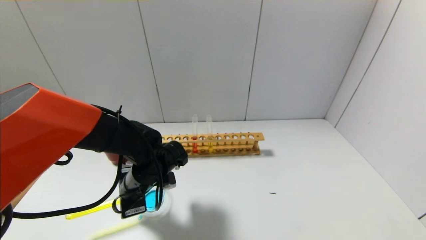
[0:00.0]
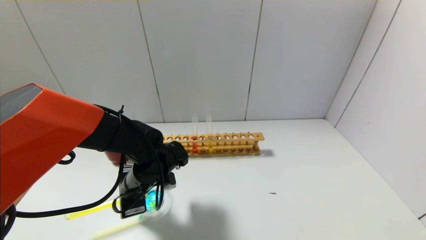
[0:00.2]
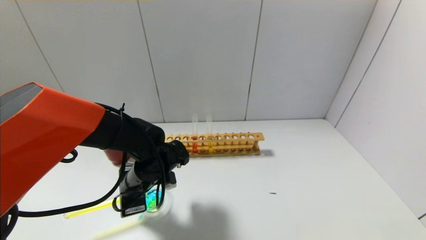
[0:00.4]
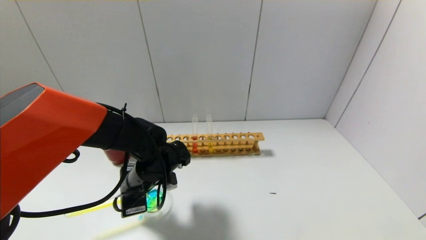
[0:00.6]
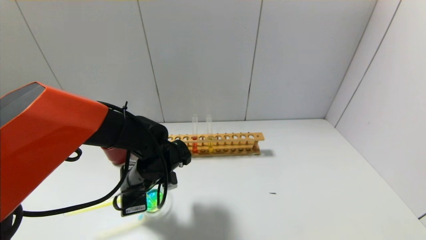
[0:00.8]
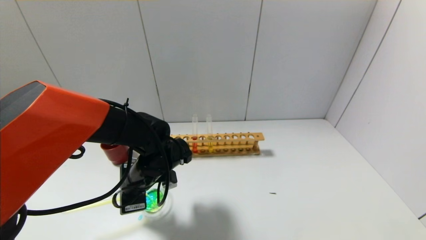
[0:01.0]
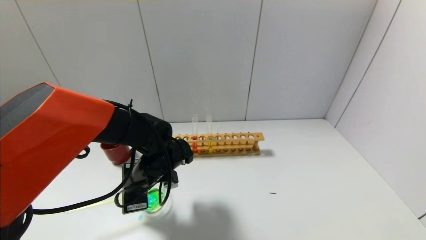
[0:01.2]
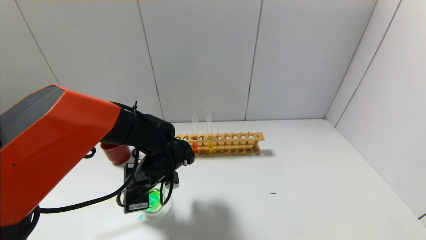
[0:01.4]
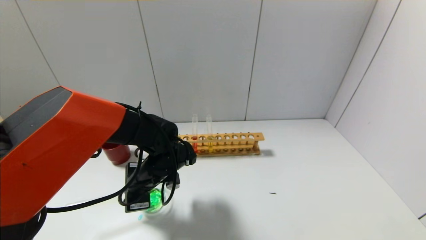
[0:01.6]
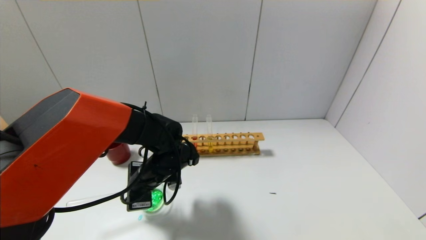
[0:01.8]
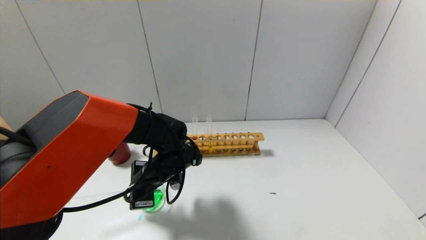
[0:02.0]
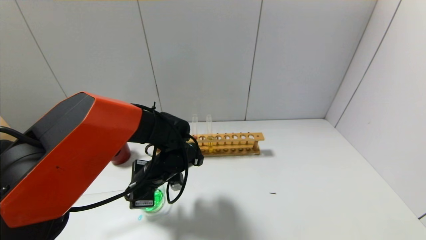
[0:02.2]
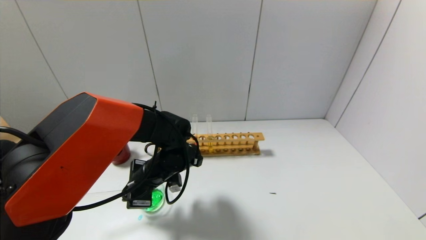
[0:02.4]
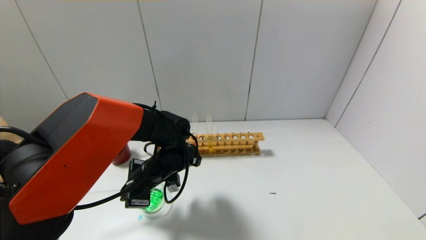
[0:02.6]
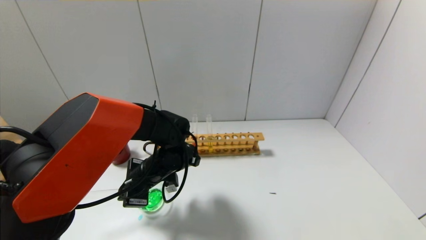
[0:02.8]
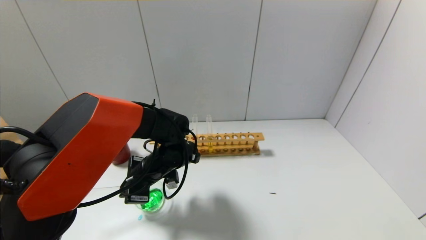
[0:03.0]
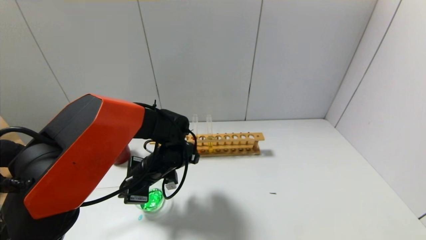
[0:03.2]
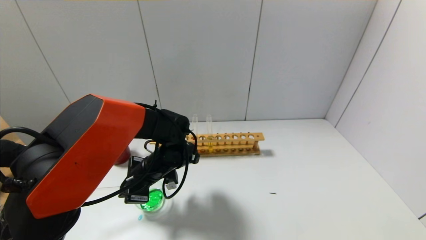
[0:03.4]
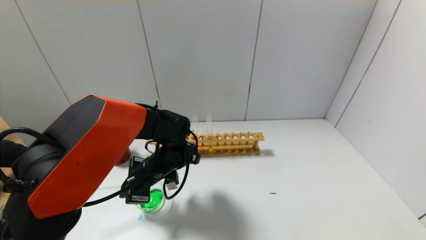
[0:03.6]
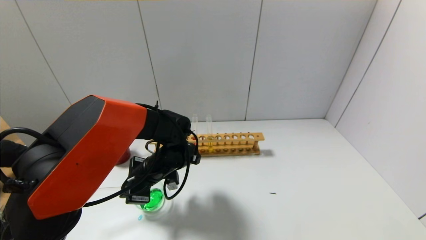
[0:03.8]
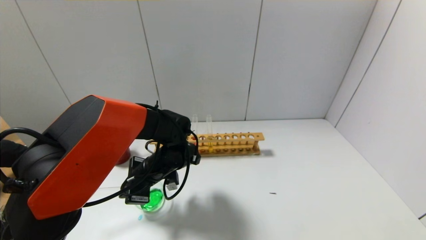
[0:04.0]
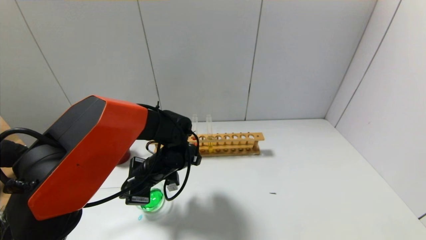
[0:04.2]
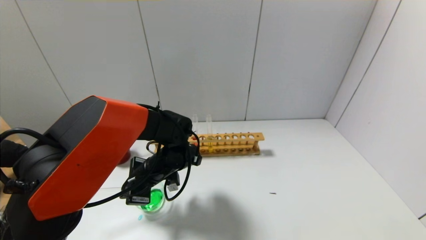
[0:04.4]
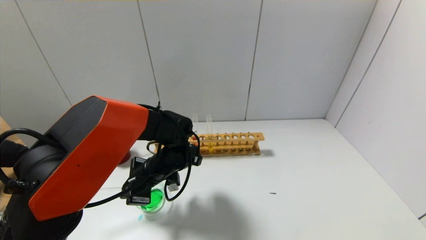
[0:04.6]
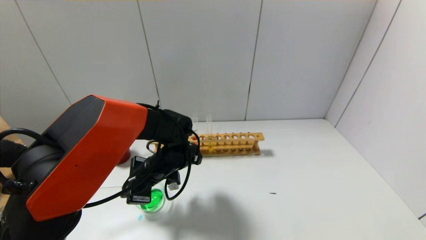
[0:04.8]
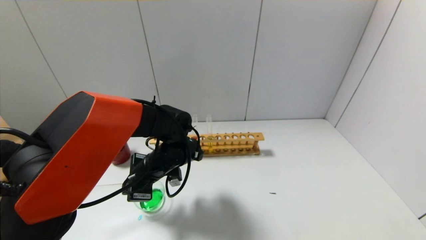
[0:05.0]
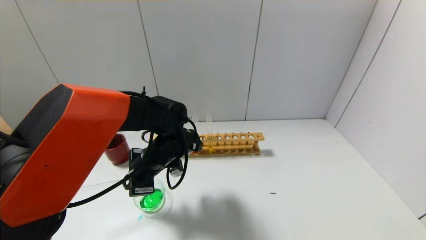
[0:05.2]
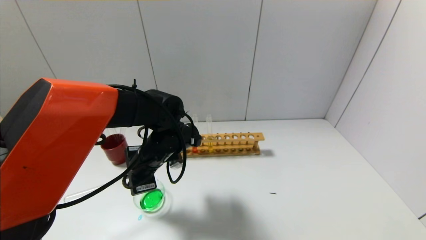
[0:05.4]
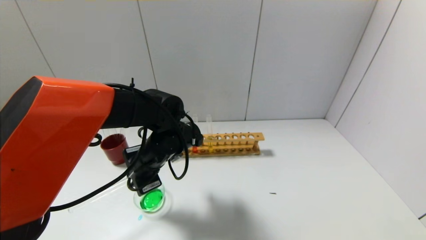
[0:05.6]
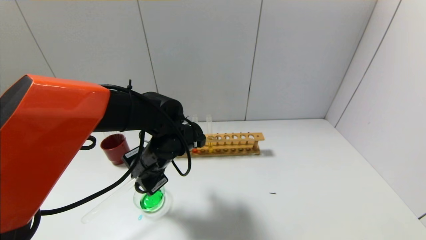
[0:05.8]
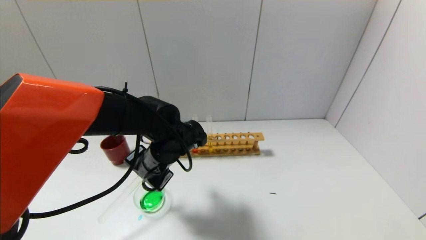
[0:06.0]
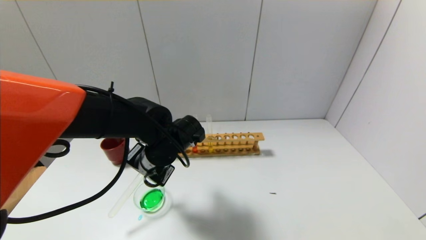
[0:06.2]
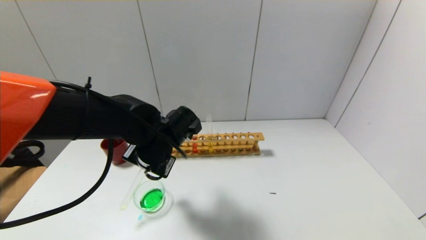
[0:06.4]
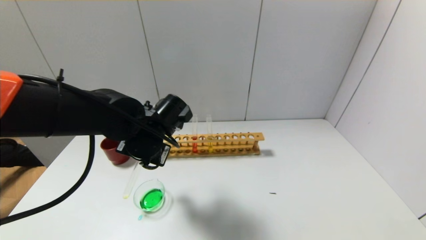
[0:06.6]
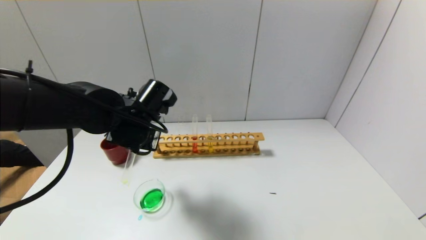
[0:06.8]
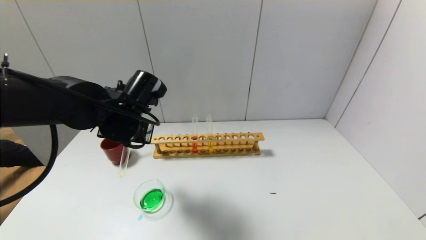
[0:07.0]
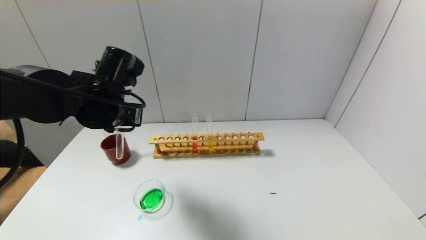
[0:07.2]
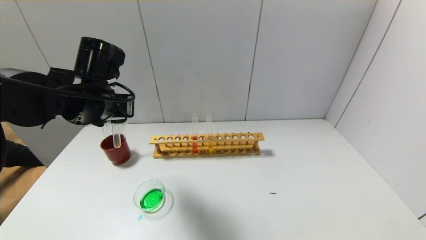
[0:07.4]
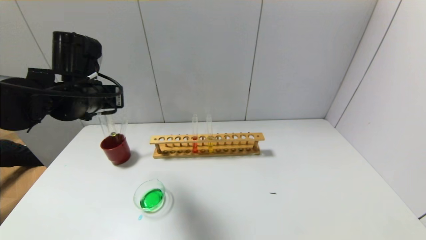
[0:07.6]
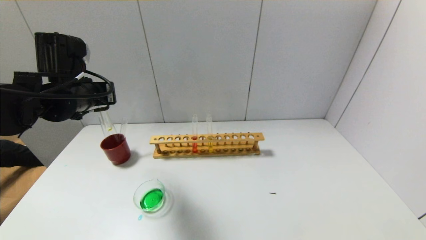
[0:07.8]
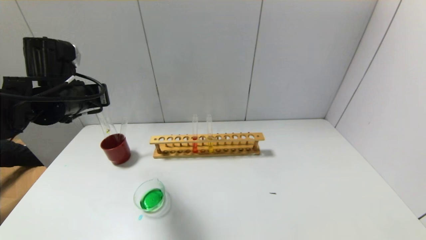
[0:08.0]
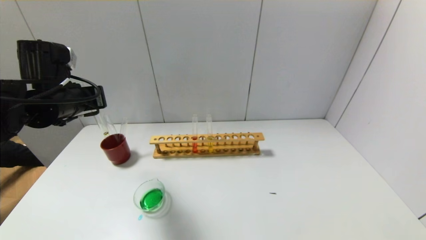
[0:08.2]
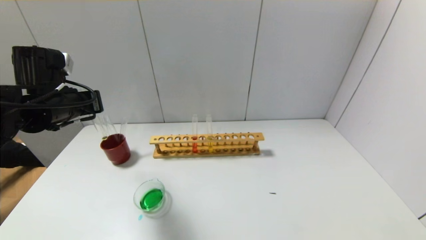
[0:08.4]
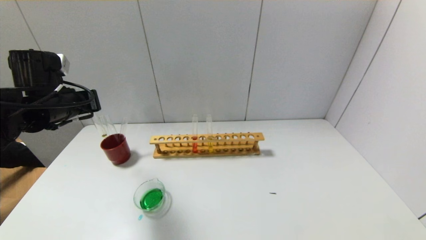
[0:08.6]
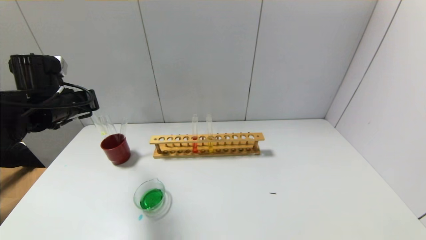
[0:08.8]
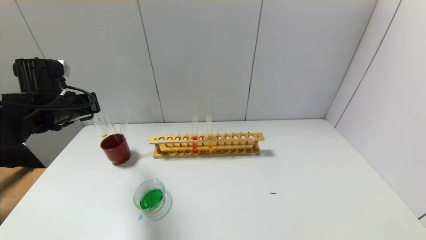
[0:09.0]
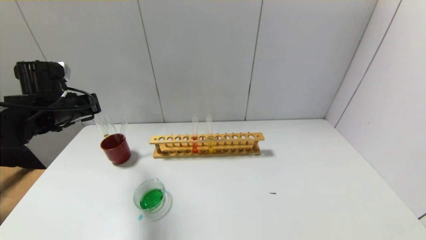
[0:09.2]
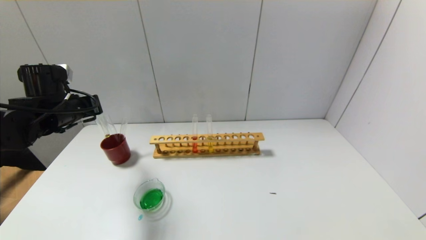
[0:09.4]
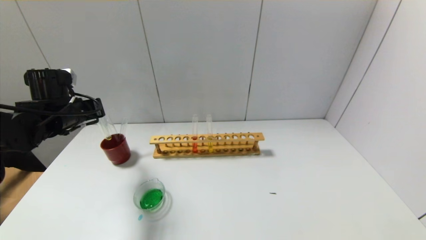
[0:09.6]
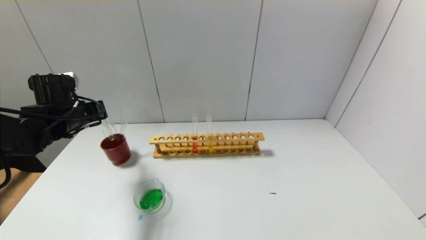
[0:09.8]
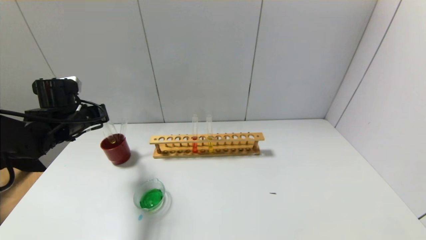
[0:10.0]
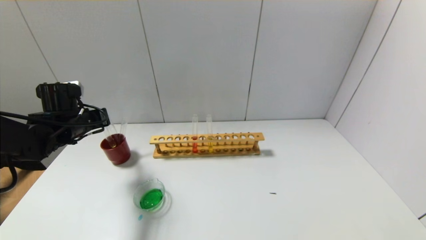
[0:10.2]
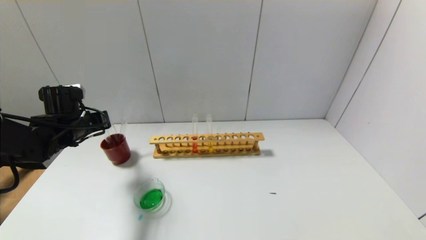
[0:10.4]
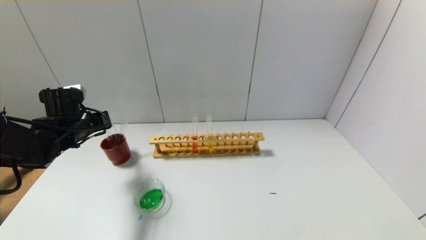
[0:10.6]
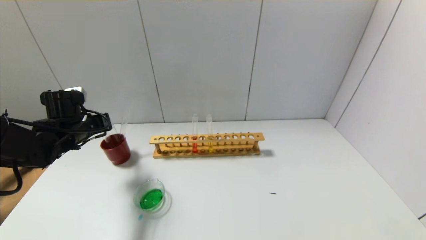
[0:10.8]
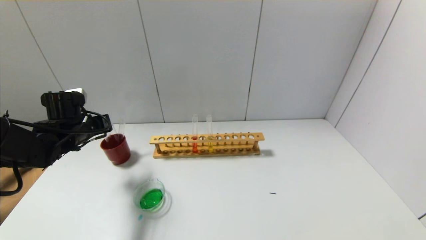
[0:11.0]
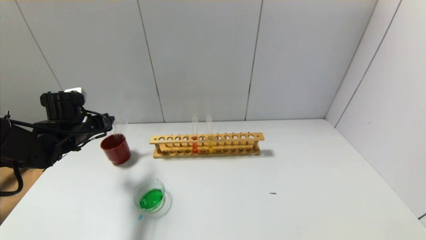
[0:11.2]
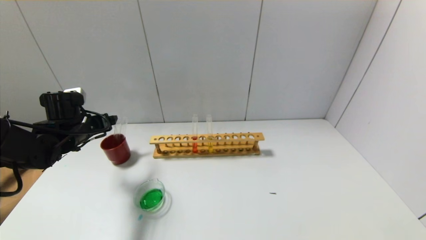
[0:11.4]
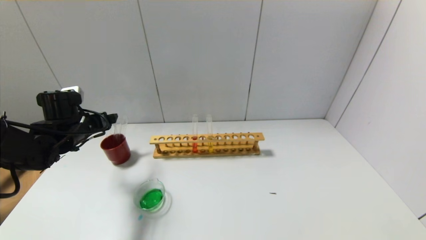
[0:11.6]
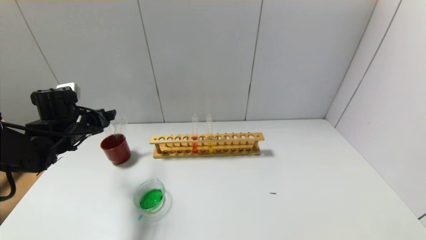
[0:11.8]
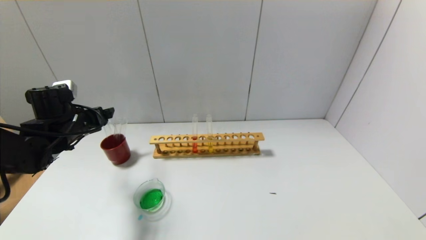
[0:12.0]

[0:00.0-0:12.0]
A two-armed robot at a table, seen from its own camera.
Step, 0.0 to 5.2 s: Pour the yellow reagent into the graduated cylinder with the left gripper.
Step, 5.4 to 11.0 s: Place the test tube into the brown cup with the left gripper.
0.0 to 1.6 s: The grippers move only a little.
1.6 to 3.0 s: The grippers move only a little.
3.0 to 4.4 s: Both grippers stay put.
6.0 to 7.6 s: The left gripper shifts roughly 15 cm upward and to the left.
7.6 to 9.0 s: The left gripper goes roughly 10 cm to the left.
9.0 to 10.4 s: The left gripper travels downward by about 5 cm.
10.4 to 12.0 s: The left gripper opens.

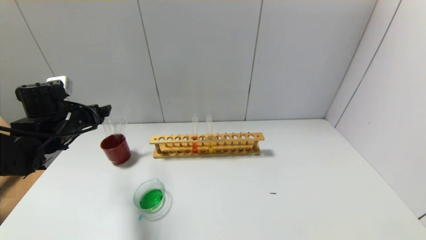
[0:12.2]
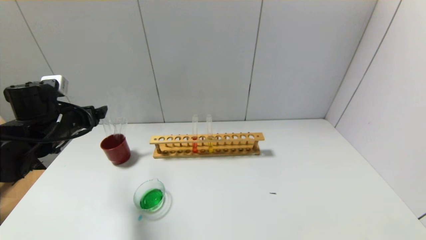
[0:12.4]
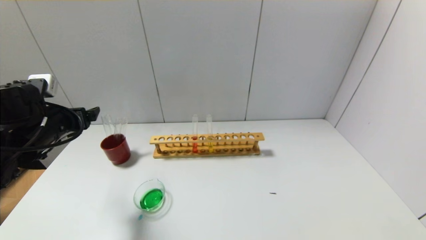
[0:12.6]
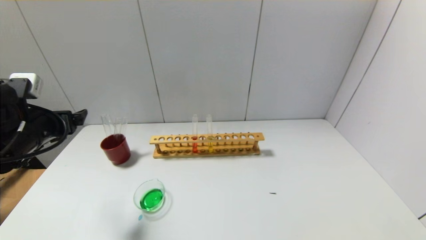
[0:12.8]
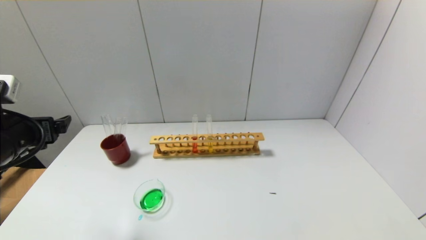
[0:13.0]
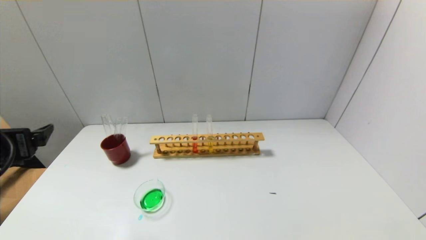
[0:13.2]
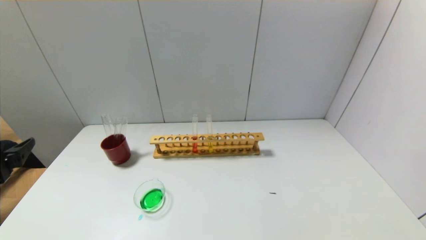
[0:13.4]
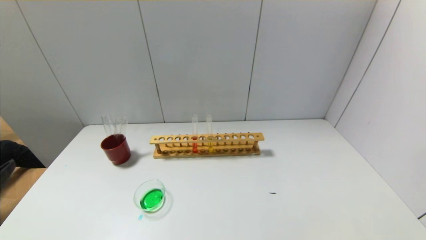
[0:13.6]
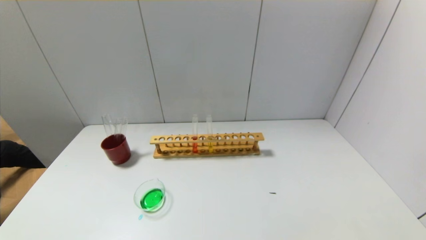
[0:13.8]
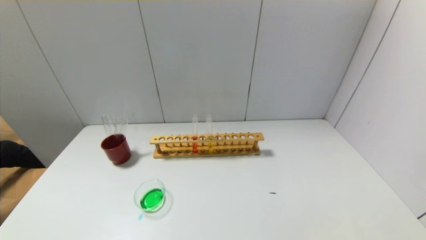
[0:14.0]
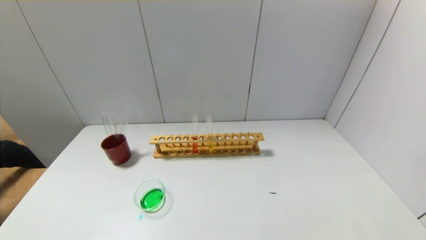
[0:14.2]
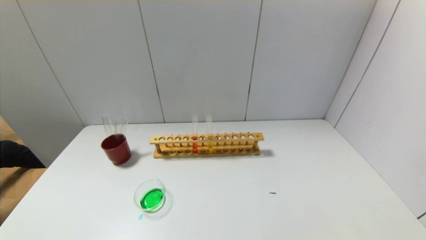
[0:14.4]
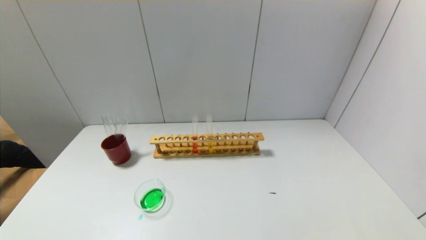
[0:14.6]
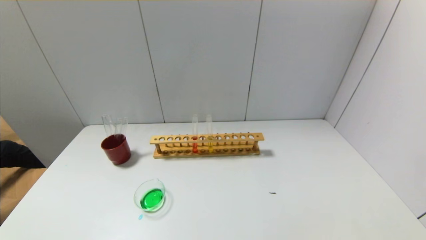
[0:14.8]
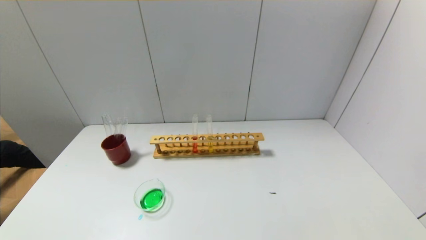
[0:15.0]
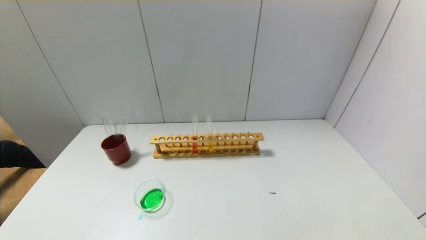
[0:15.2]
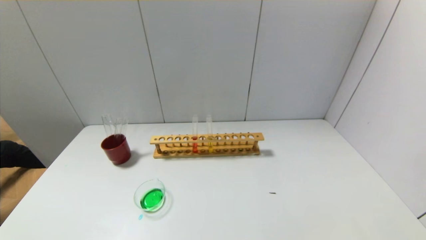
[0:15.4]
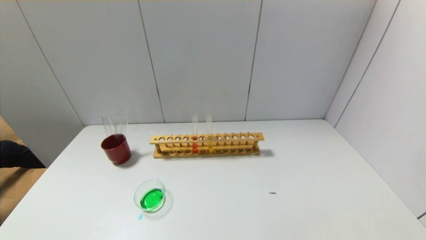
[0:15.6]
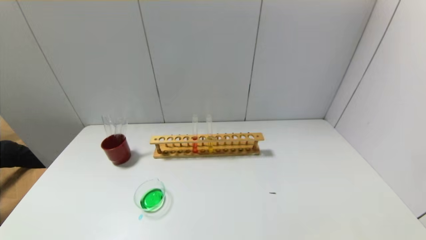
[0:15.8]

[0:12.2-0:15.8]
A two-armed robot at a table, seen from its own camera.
12.2 to 14.0 s: The left gripper heads backward, covering some 35 cm.

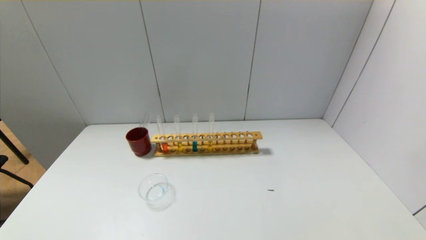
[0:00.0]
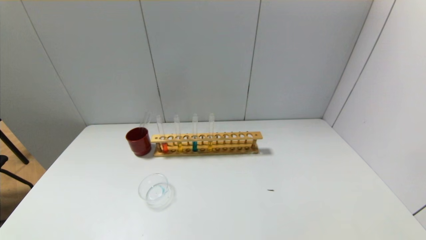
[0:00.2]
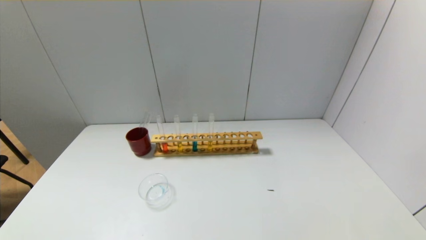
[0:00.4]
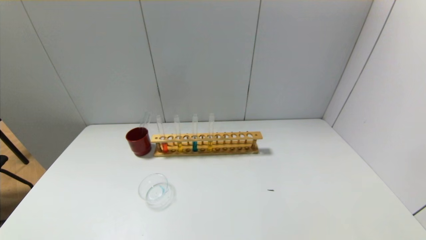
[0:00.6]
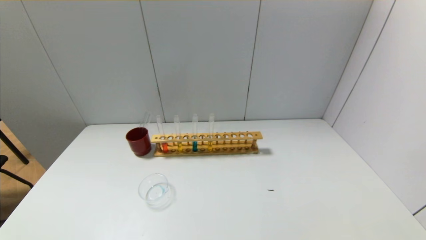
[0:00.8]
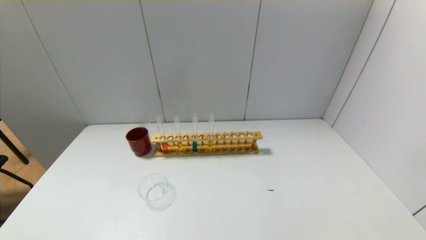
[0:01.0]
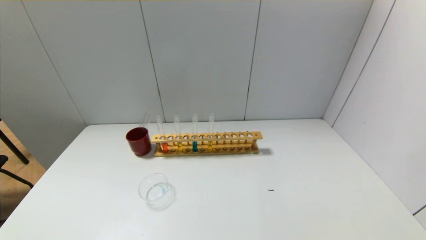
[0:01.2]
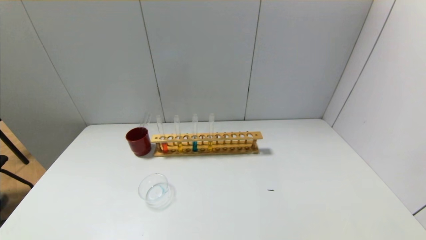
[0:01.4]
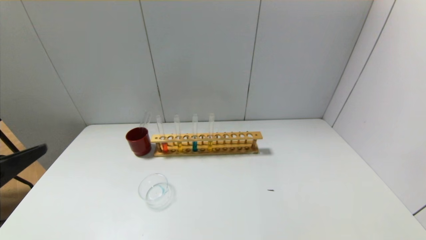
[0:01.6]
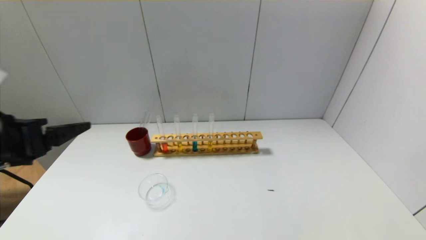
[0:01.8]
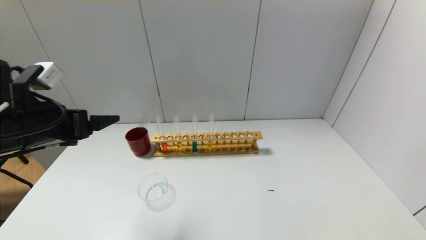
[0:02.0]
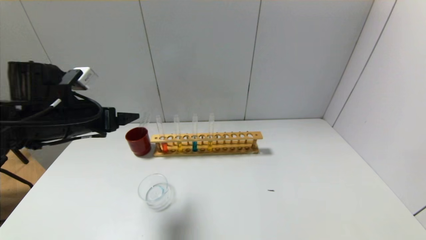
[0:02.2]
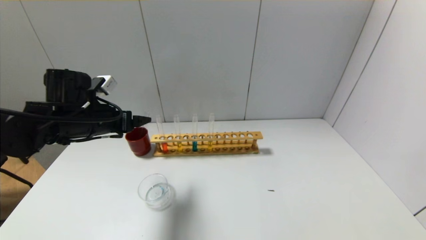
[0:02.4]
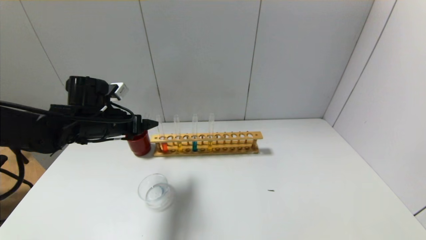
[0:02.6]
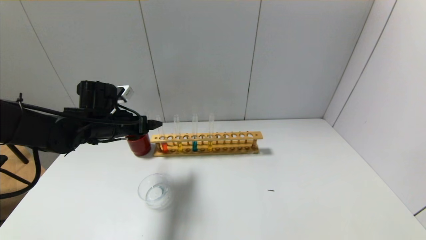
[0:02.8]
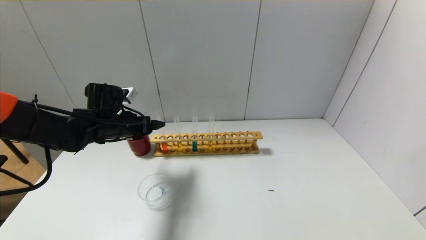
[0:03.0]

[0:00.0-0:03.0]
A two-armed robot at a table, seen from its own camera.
0.0 to 1.6 s: The left gripper moves upward and forward, approximately 20 cm.
1.6 to 3.0 s: The left gripper heads forward, covering about 25 cm.
